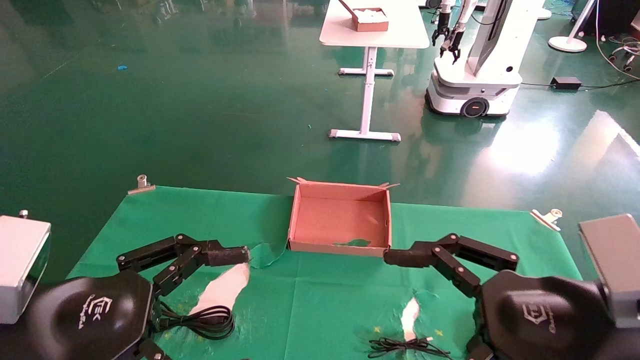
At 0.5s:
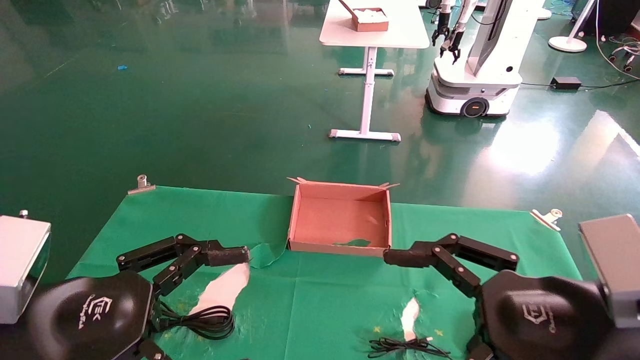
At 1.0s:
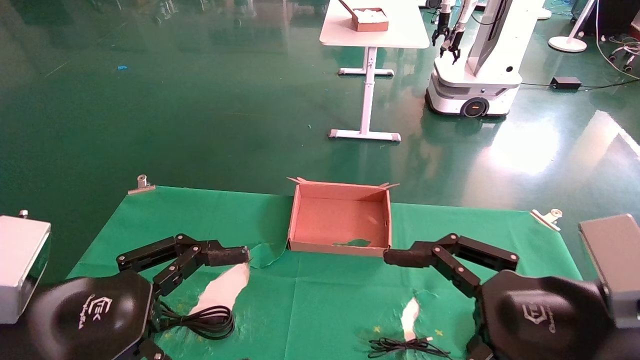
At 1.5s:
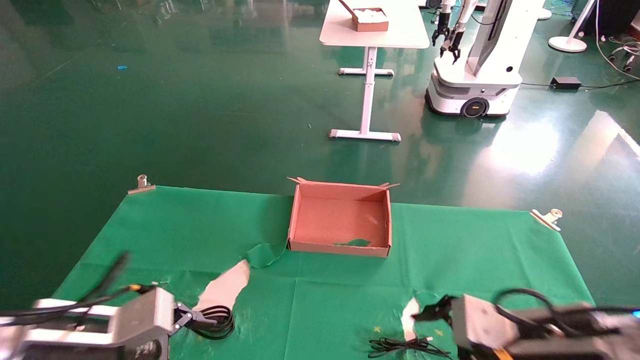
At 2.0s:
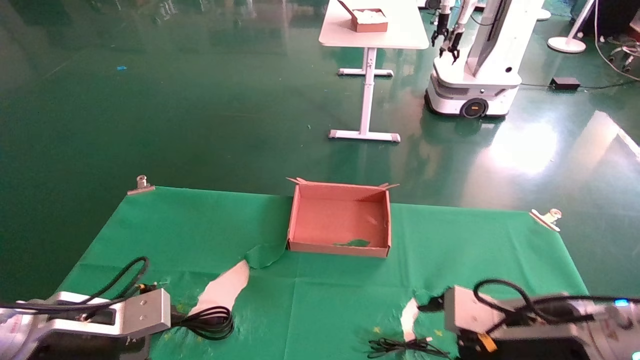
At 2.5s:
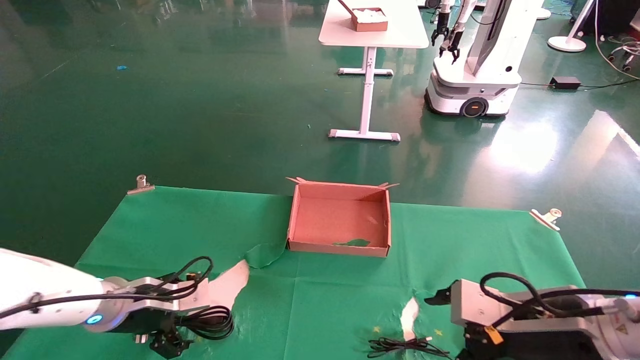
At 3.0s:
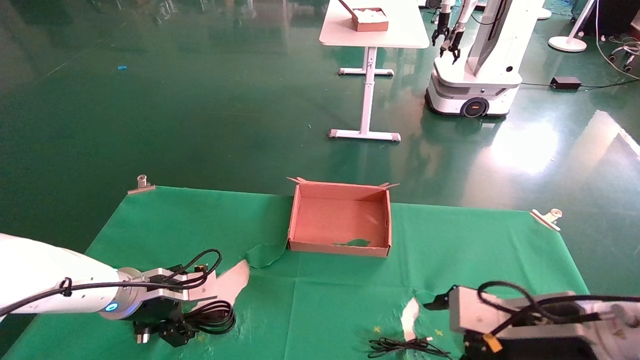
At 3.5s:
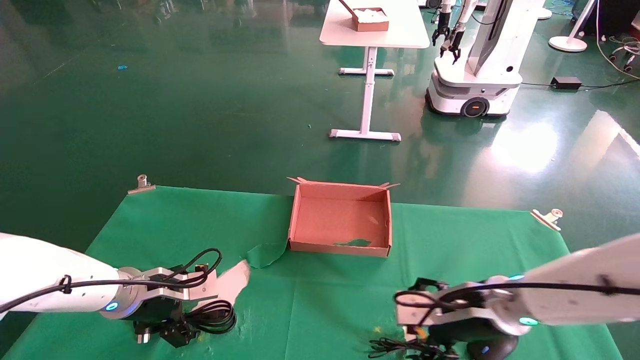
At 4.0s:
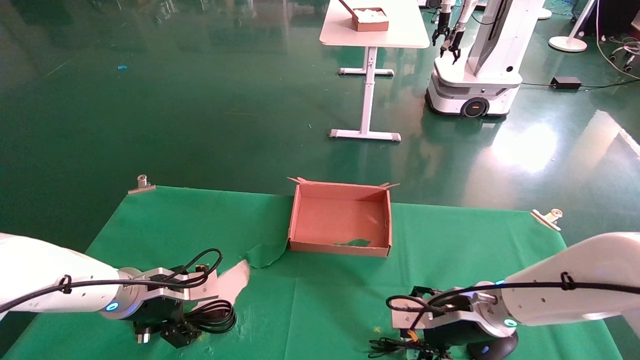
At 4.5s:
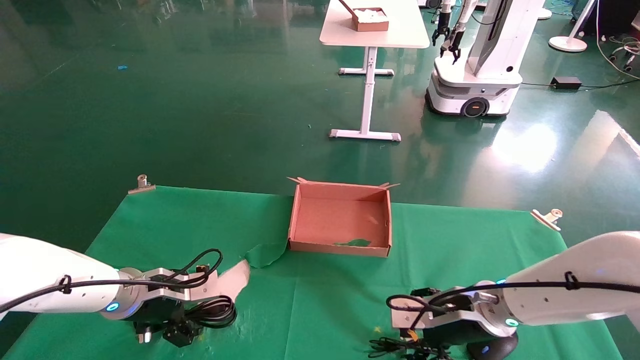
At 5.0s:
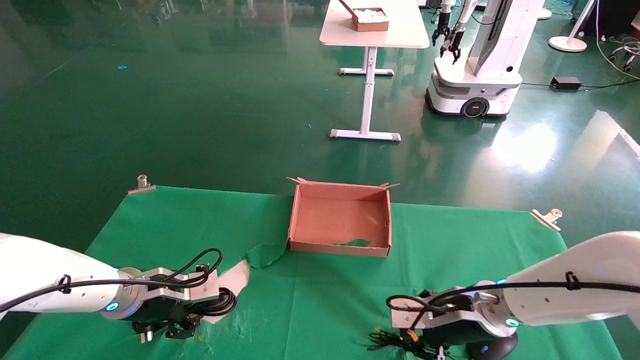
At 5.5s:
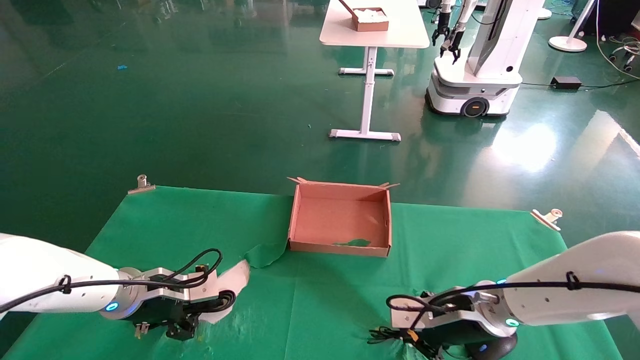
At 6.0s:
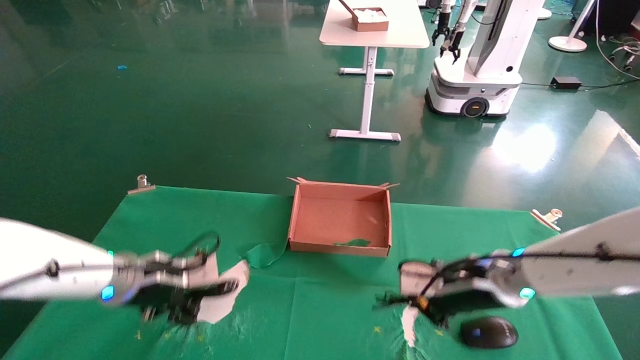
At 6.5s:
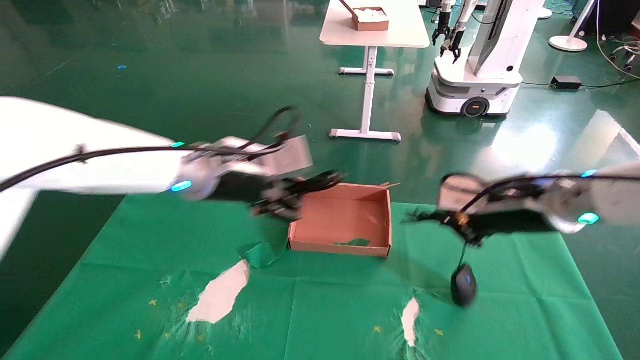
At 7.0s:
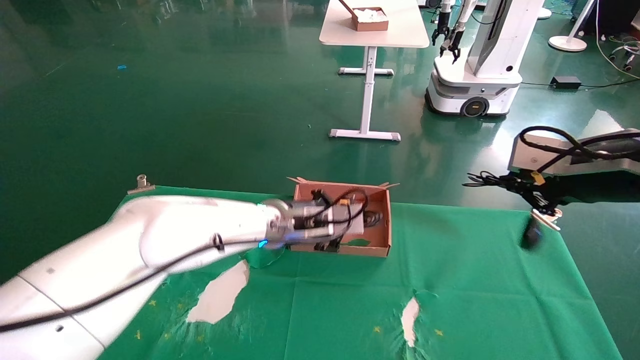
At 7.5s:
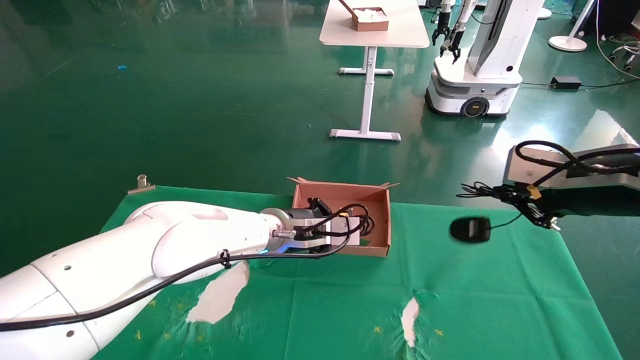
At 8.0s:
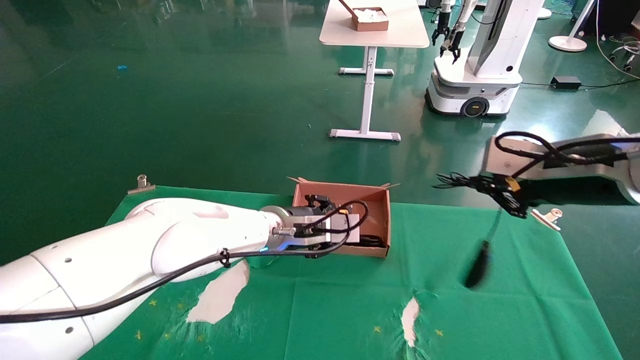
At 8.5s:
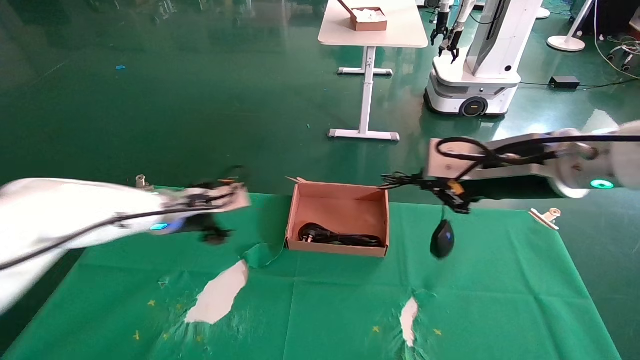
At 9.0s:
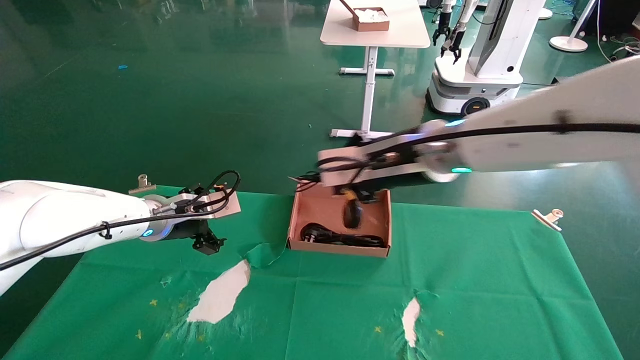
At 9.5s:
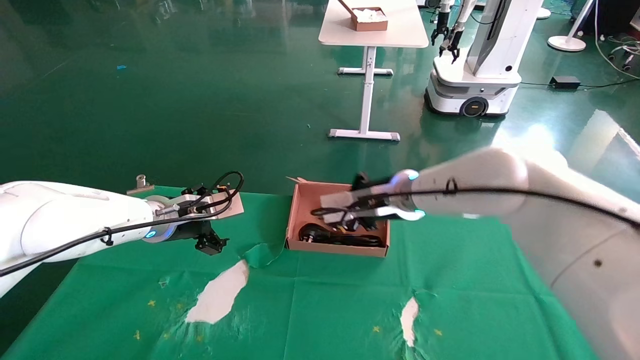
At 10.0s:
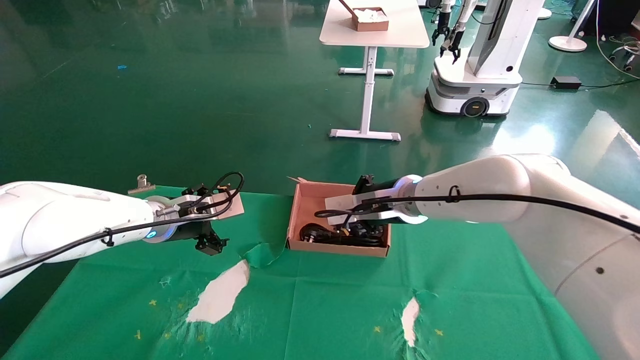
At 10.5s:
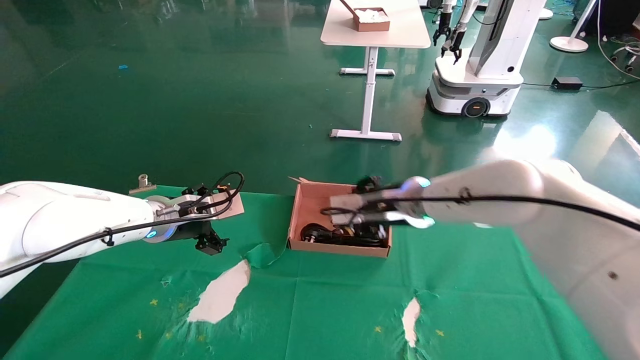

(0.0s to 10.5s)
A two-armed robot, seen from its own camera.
Step, 2.0s - 6.0s: Grab and lift both the mouse and power cord from the accessory packaging area at the same time.
0.0s - 2.0s: Both grippers travel together forward and downward, approximately 15 cm.
2.0s - 4.0s: Both grippers move forward, some 10 cm.
4.0s - 6.5s: Both grippers travel together upward and to the right, roughly 20 cm. The right gripper closes, while the left gripper closes up.
6.5s - 8.5s: The left gripper goes some 15 cm to the left, forward and downward, and opens up. Meanwhile the right gripper travels upward by approximately 5 cm.
8.5s - 10.5s: The right gripper moves forward, to the left and downward, about 20 cm, and opens.

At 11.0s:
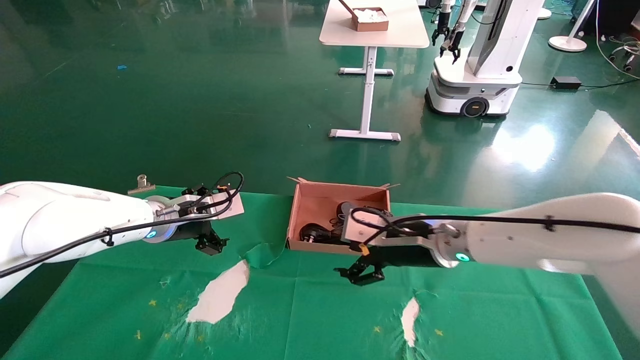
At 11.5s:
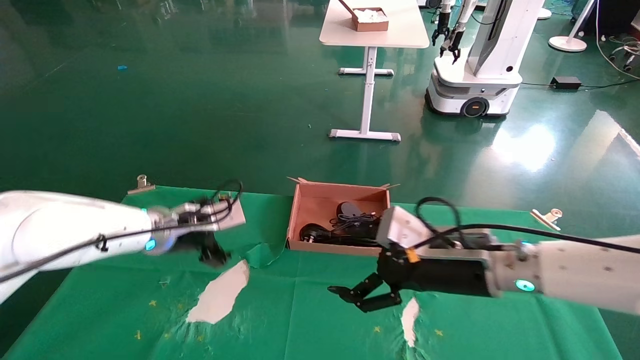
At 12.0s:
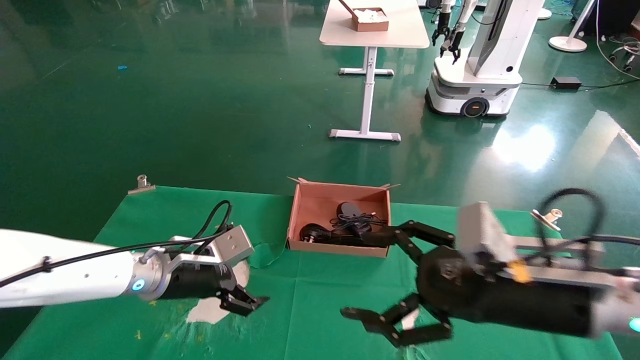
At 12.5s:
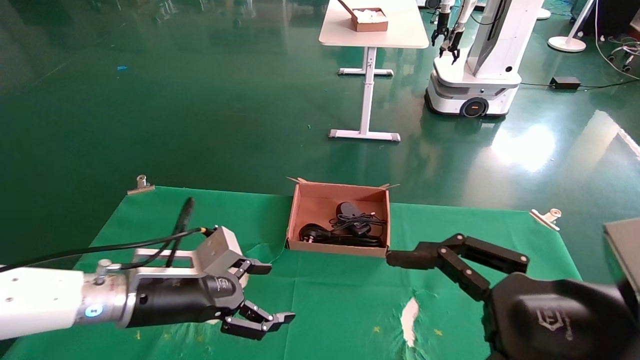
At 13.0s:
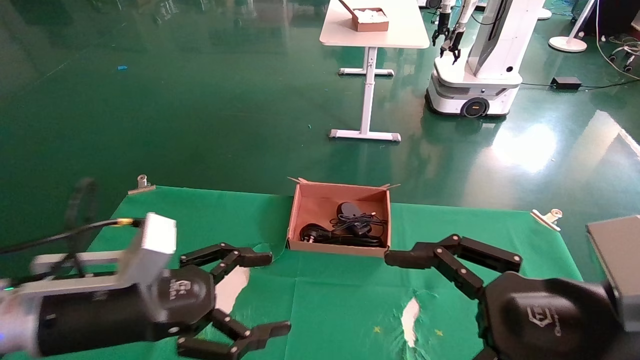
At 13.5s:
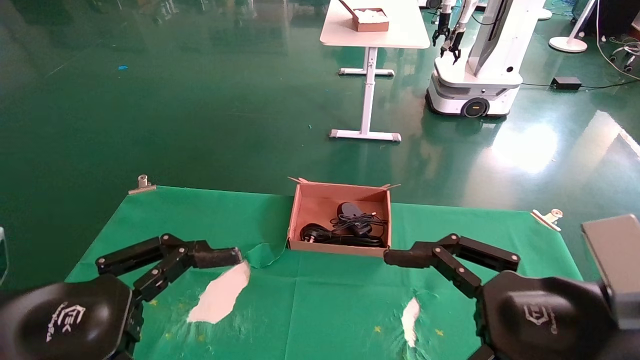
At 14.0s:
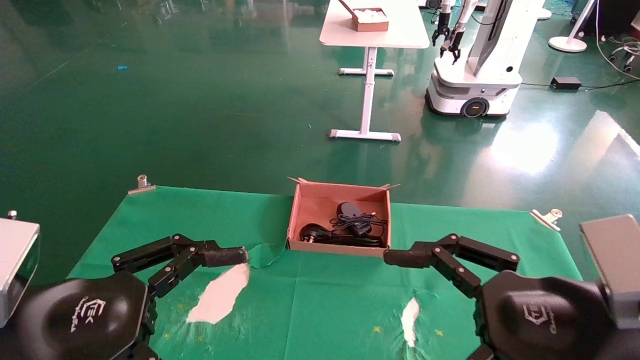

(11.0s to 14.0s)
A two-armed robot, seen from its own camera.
11.0s - 12.5s: The right gripper is displaced backward and to the right by some 25 cm; the left gripper heads backward and downward, covering approximately 15 cm.
12.5s - 14.0s: The left gripper moves backward and upward, approximately 15 cm.

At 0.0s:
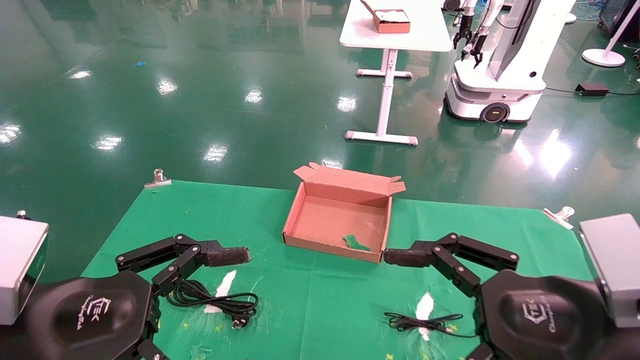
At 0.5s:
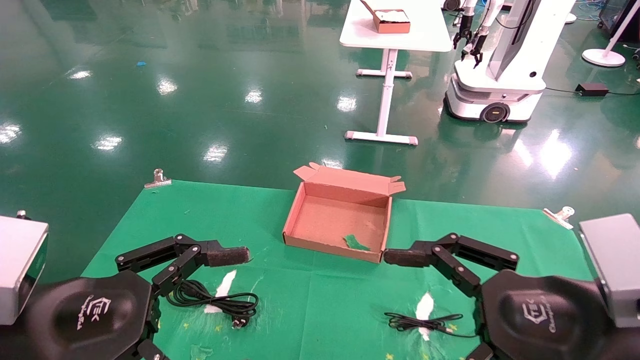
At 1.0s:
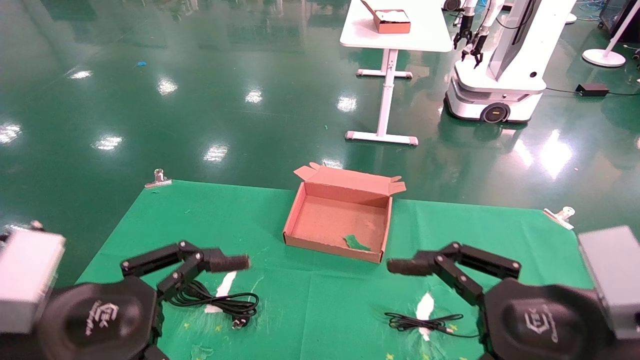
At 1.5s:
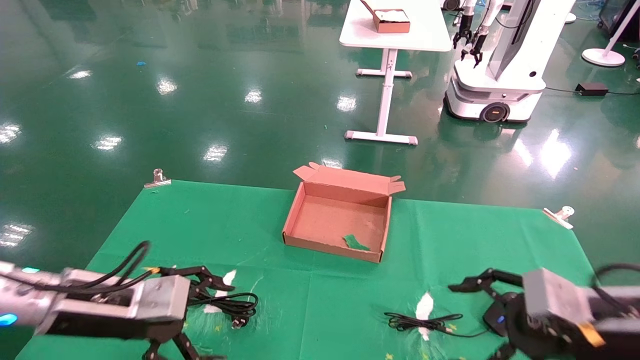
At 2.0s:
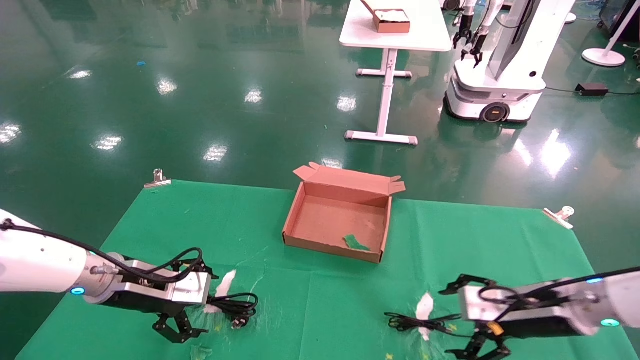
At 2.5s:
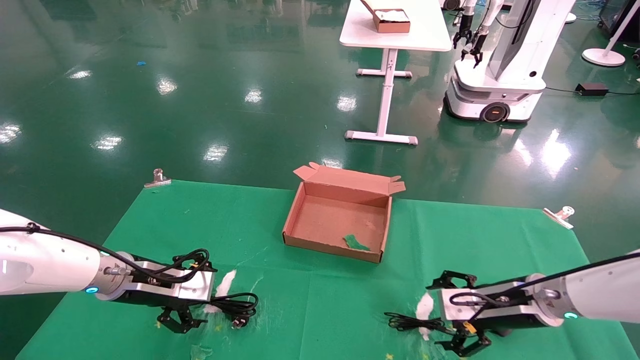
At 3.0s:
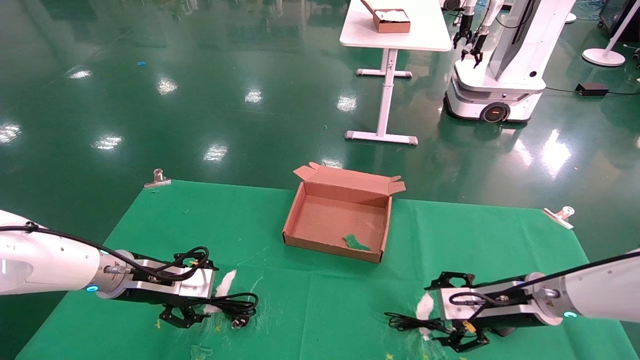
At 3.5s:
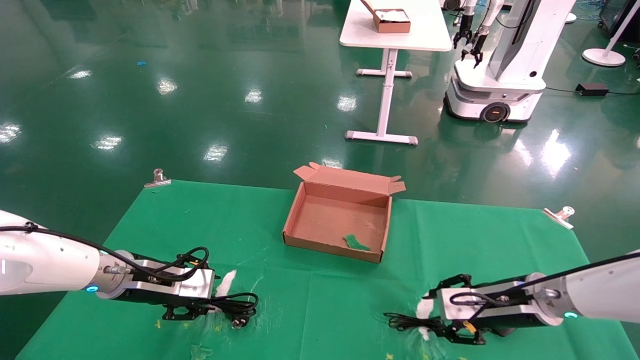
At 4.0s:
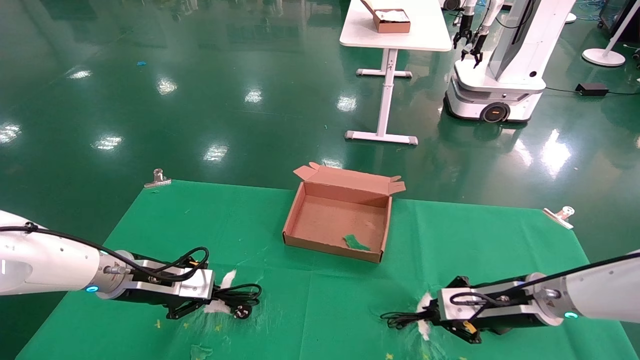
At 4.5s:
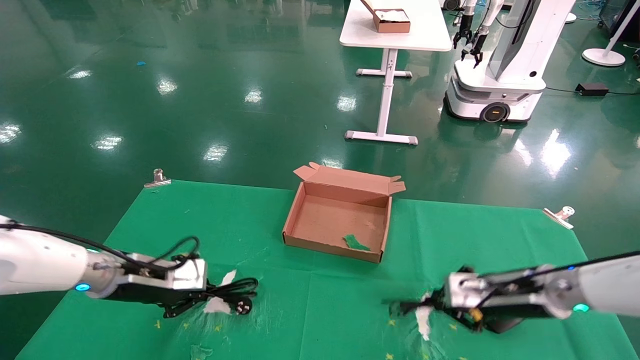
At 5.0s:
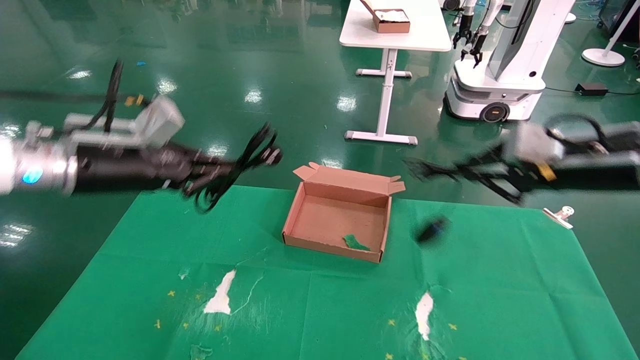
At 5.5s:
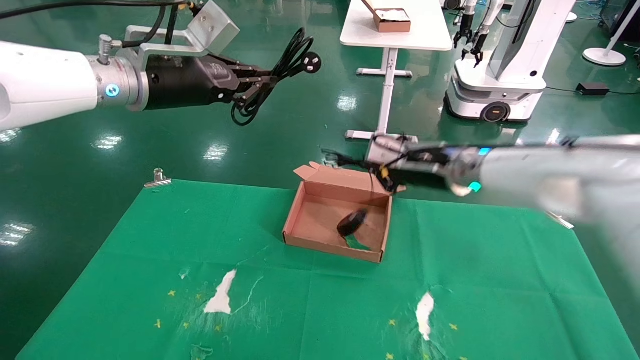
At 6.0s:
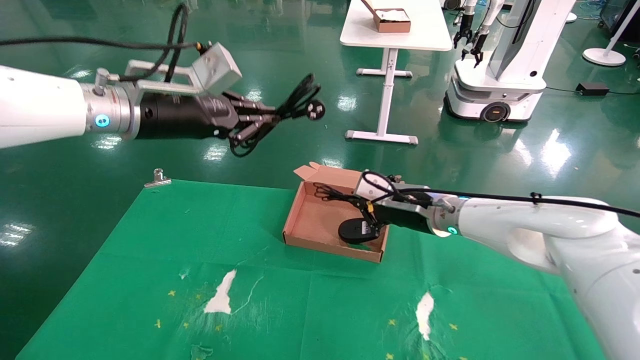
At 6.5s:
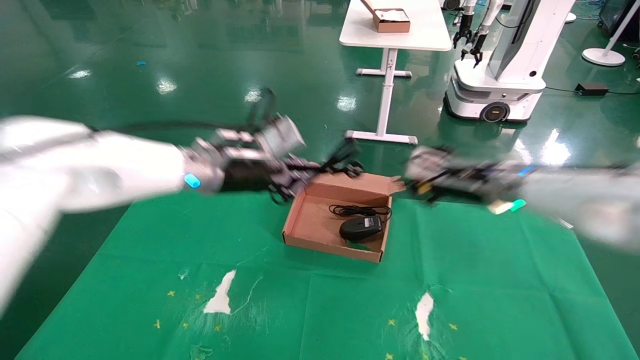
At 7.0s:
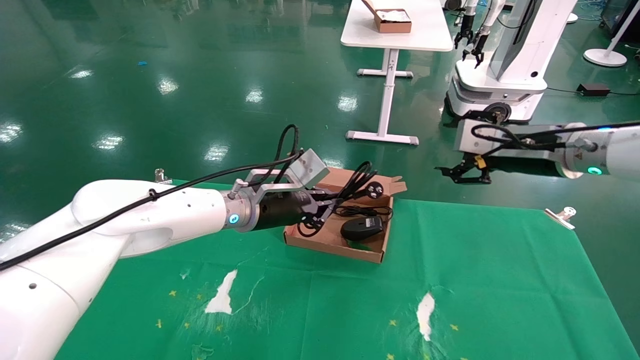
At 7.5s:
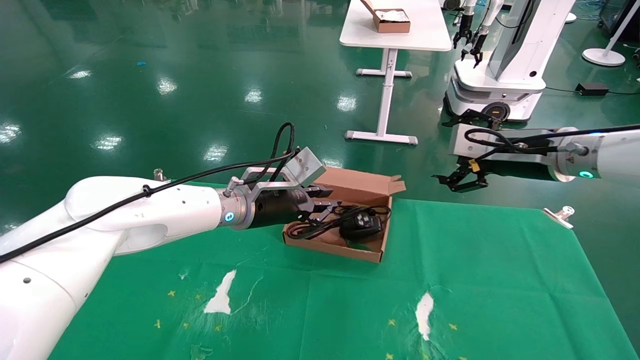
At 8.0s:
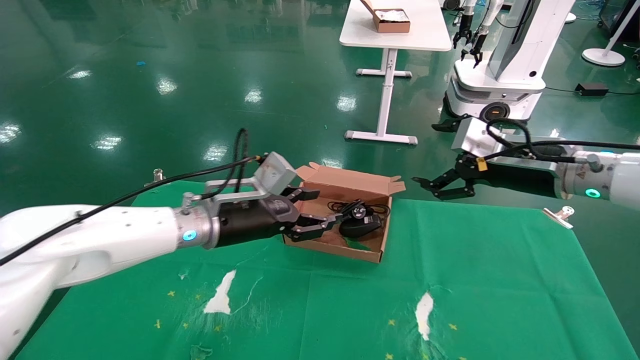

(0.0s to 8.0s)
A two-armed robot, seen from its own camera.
Step, 1.5s - 4.5s: Grab and lift both the mouse and power cord from the accessory packaging area at the same time.
0.0s - 2.0s: The left gripper moves forward, roughly 20 cm. Meanwhile the right gripper moves forward and downward, approximately 20 cm.
2.0s - 4.0s: The right gripper closes up. Meanwhile the left gripper closes.
4.0s - 6.0s: The left gripper travels upward by roughly 25 cm, while the right gripper is displaced to the left, upward and forward by about 20 cm.
6.0s - 8.0s: The left gripper shifts approximately 15 cm downward and to the right, and opens its fingers, while the right gripper shifts roughly 15 cm to the right, upward and backward, and opens up.
